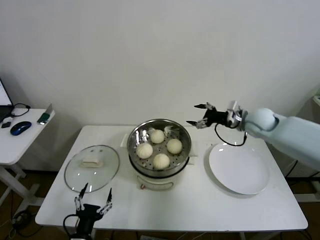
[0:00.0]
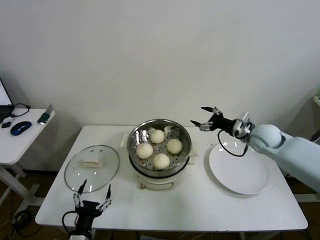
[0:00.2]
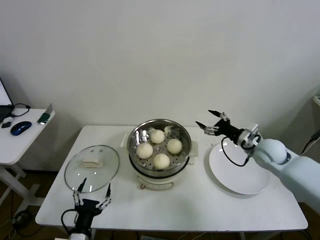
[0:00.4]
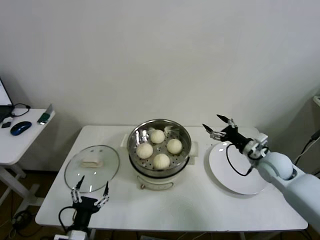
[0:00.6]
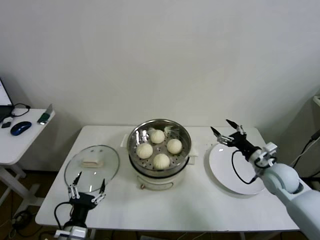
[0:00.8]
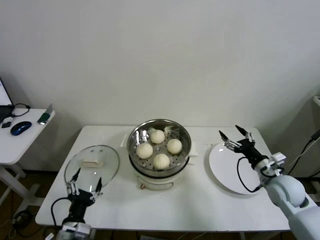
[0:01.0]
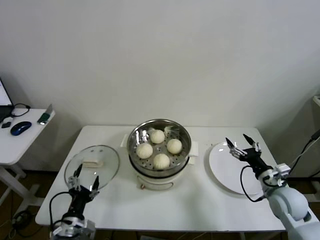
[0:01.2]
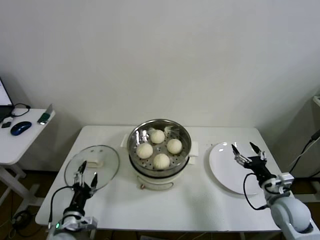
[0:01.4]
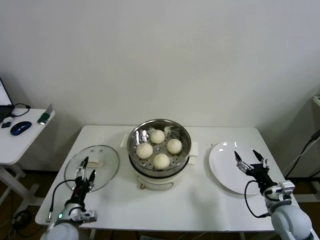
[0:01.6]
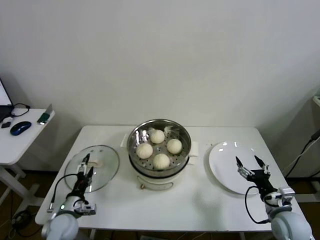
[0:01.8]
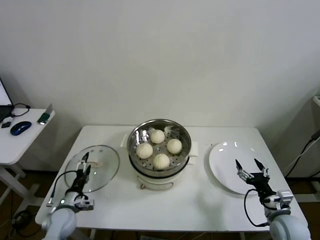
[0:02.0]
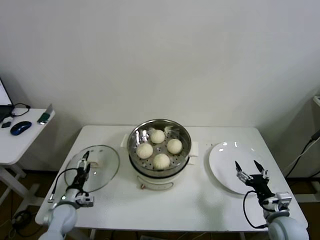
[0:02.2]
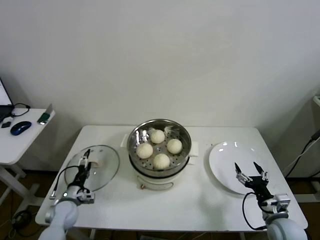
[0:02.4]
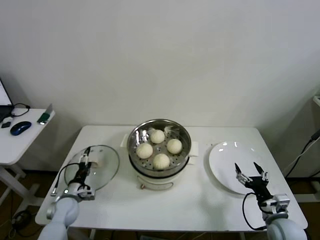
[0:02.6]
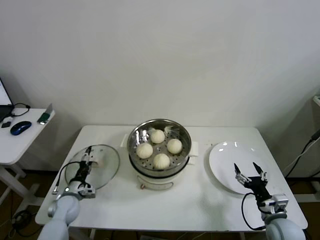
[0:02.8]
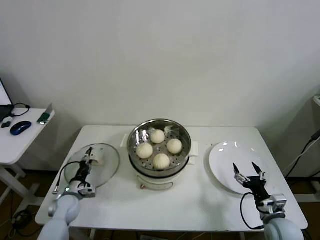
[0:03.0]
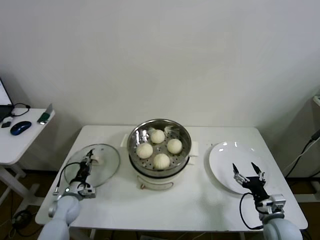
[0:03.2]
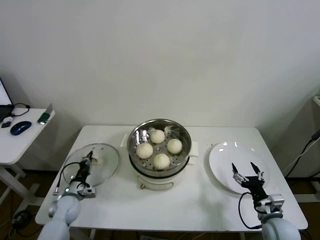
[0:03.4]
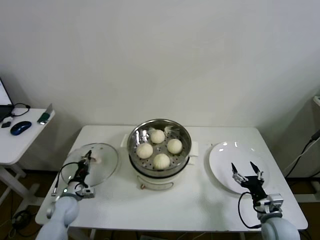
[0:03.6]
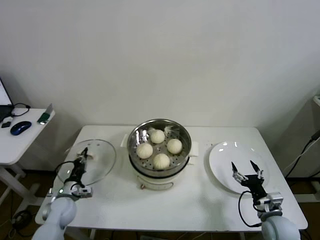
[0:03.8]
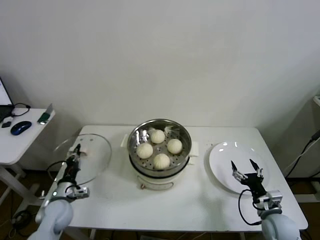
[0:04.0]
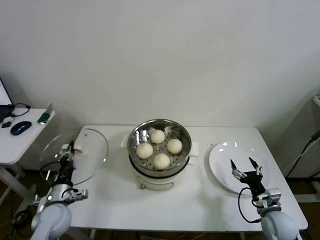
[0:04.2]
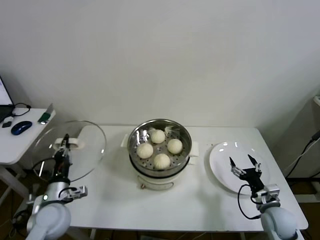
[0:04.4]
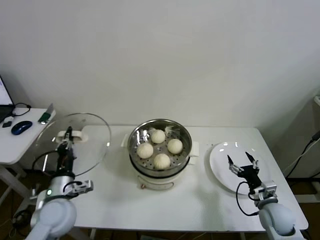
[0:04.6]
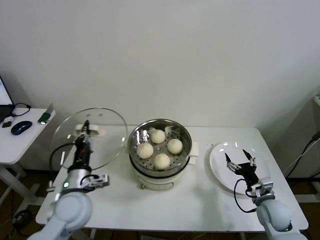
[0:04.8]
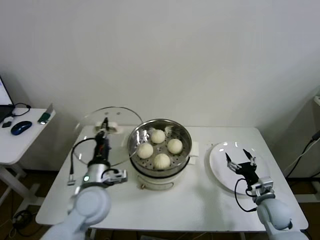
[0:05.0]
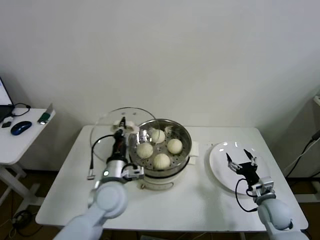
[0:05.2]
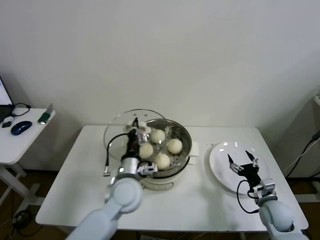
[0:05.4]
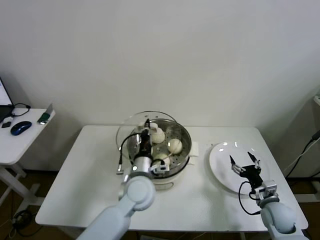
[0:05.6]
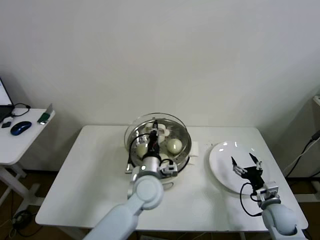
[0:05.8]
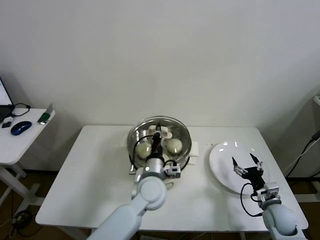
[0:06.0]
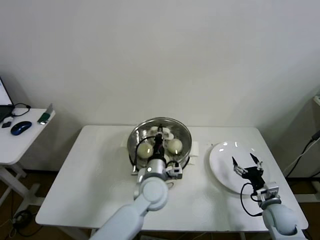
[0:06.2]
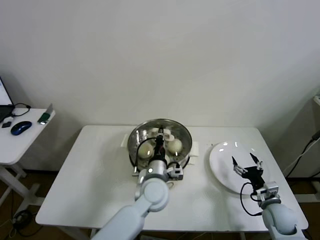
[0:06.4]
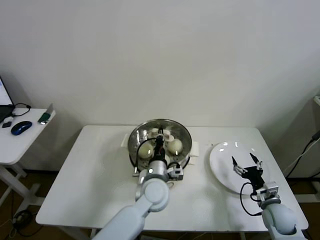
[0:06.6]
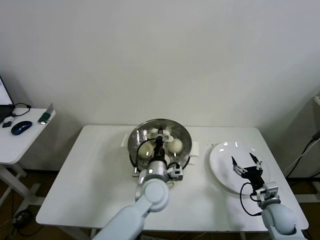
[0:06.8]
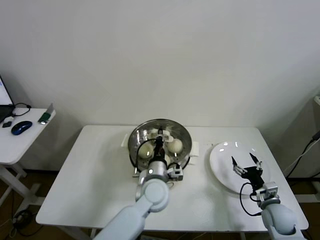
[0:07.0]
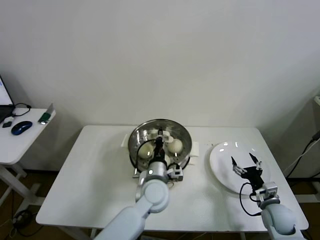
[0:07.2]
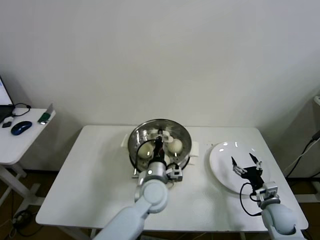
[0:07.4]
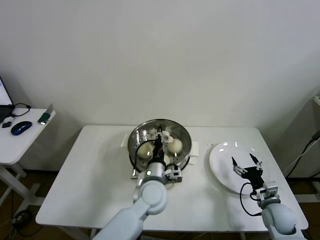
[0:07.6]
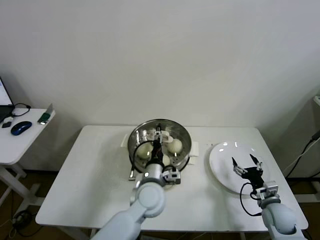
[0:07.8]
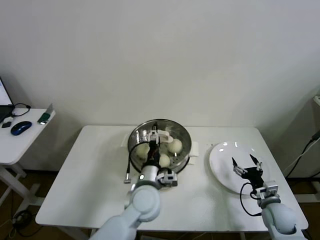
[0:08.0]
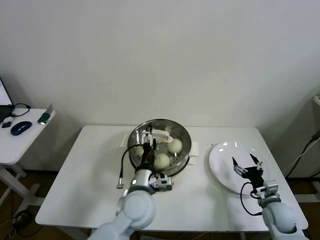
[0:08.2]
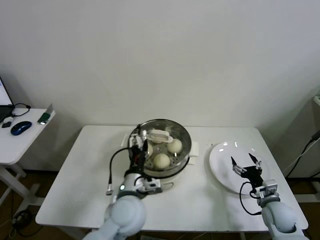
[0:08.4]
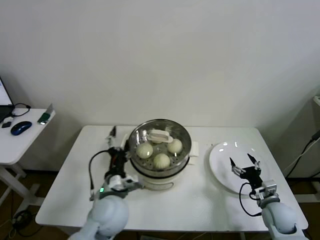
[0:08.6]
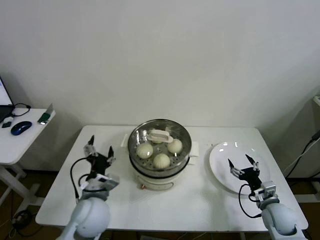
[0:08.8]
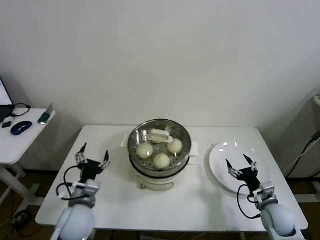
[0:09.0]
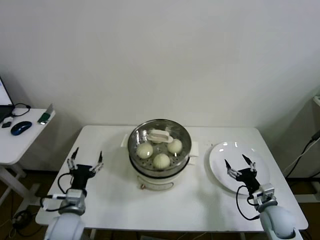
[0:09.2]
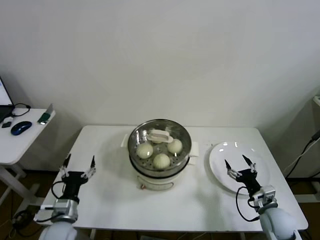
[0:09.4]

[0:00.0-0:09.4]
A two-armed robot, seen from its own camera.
Step, 0:00.0 to 0:03.6: Grasp the pot lid with left gripper.
Step, 0:04.0 to 0:08.2: Place the pot lid on the steamer with left gripper.
0:00.0 to 0:01.6: The left gripper shifts about 10 cm forward and to the left; the right gripper shifts about 30 cm backward and downward.
0:01.6 to 0:03.2: The left gripper heads forward, downward and to the left, covering some 15 cm, and closes, while the right gripper changes place by approximately 5 cm.
0:03.2 to 0:04.8: The left gripper moves upward and to the right, approximately 25 cm, and closes up, while the right gripper shifts roughly 5 cm forward.
0:04.8 to 0:06.2: The left gripper heads to the right, covering some 25 cm.
0:06.2 to 0:07.8: The left gripper opens its fingers.
0:07.8 to 0:09.4: The left gripper shifts roughly 25 cm to the left, and opens up.

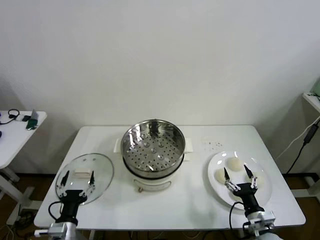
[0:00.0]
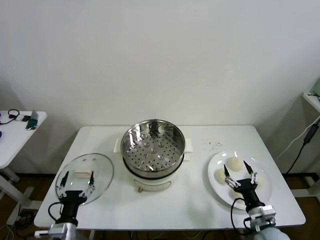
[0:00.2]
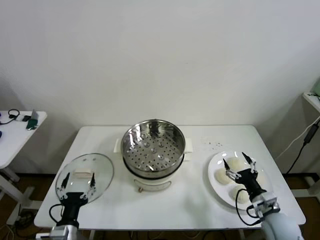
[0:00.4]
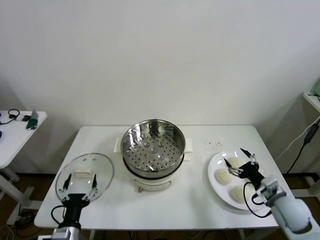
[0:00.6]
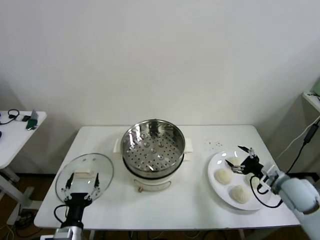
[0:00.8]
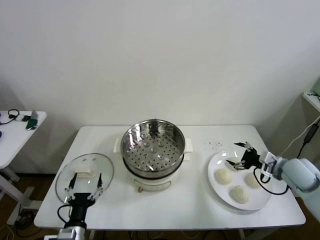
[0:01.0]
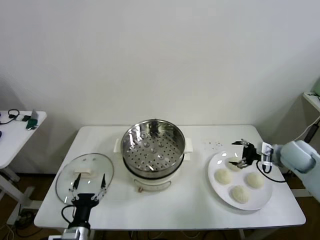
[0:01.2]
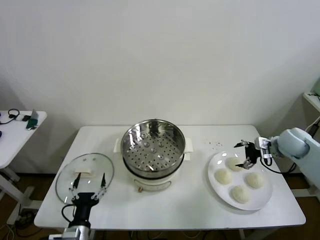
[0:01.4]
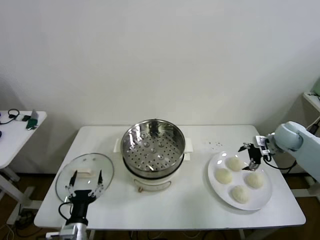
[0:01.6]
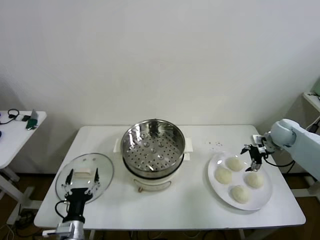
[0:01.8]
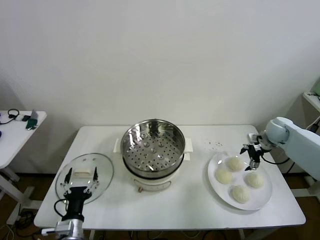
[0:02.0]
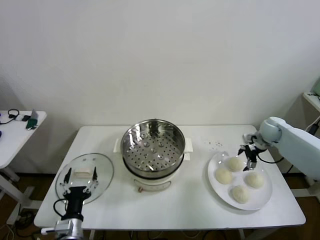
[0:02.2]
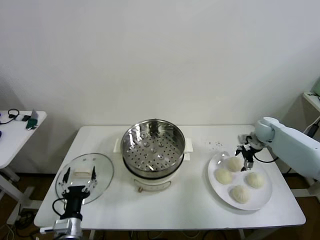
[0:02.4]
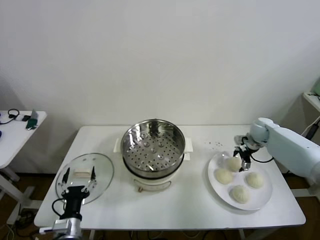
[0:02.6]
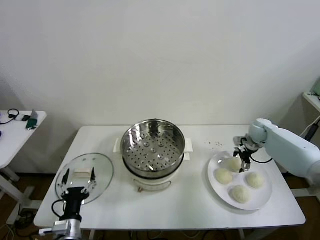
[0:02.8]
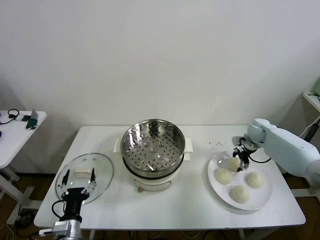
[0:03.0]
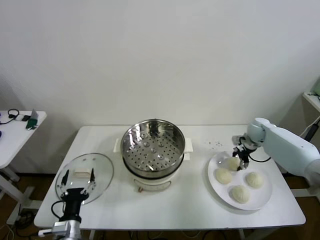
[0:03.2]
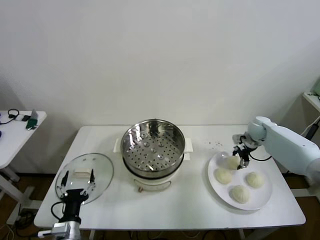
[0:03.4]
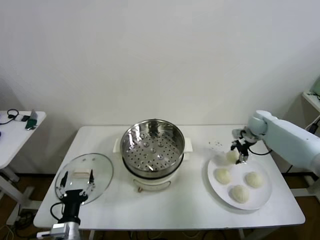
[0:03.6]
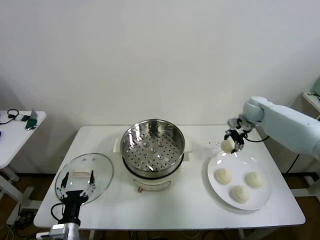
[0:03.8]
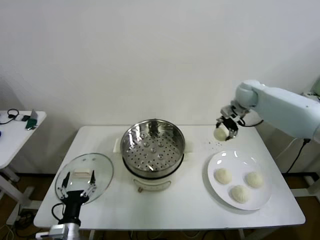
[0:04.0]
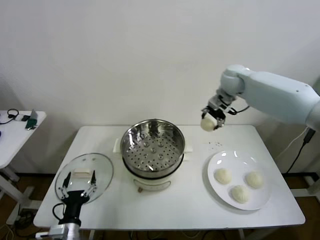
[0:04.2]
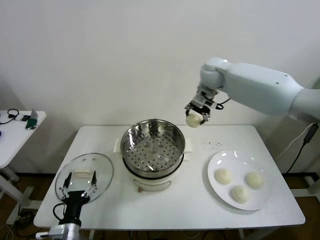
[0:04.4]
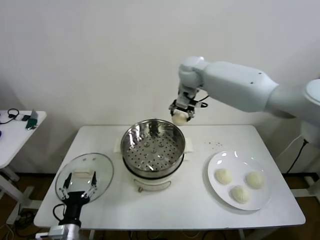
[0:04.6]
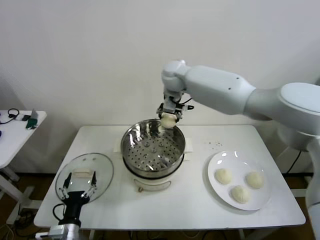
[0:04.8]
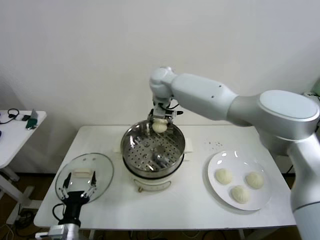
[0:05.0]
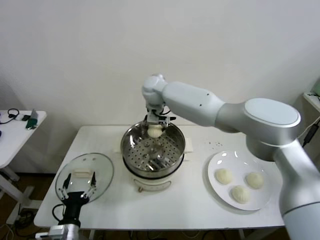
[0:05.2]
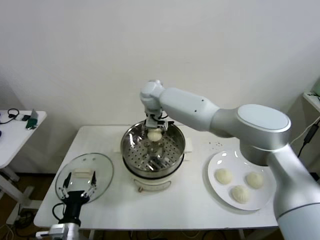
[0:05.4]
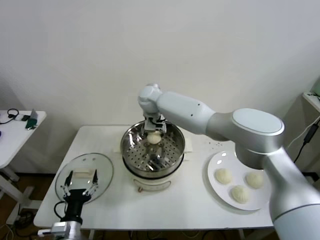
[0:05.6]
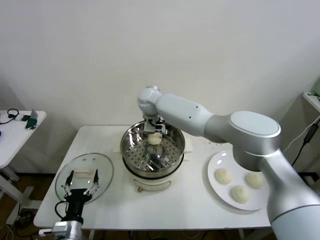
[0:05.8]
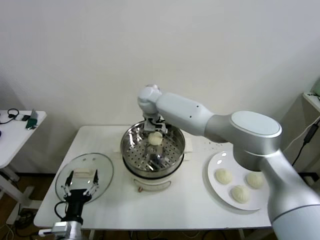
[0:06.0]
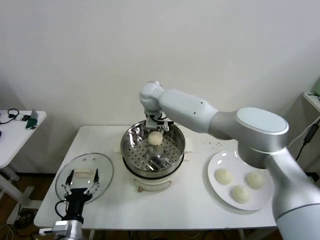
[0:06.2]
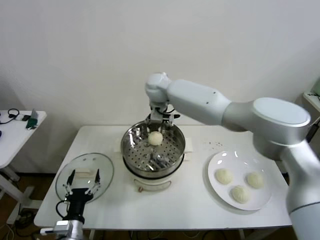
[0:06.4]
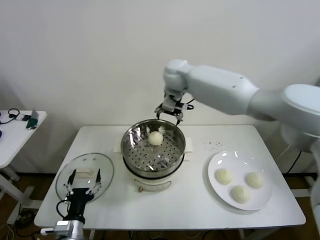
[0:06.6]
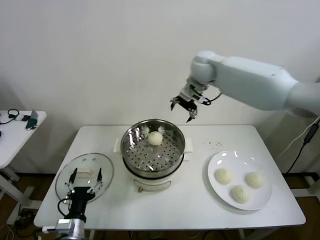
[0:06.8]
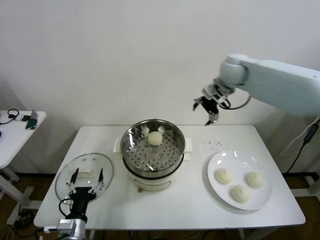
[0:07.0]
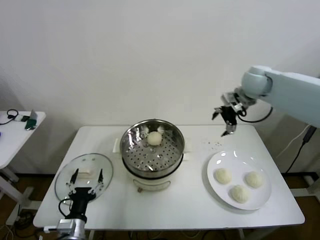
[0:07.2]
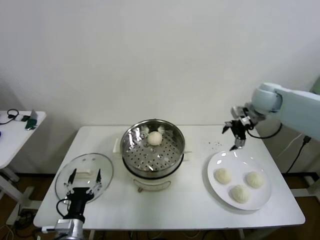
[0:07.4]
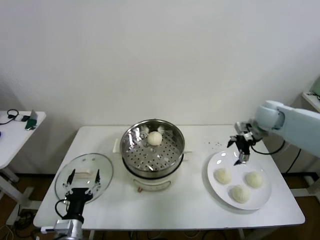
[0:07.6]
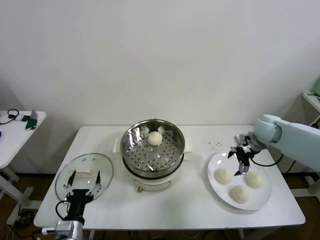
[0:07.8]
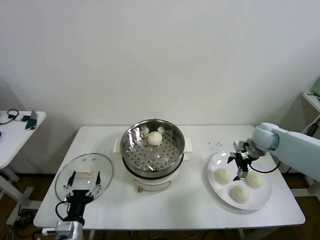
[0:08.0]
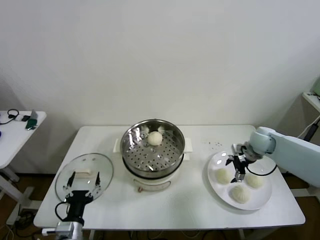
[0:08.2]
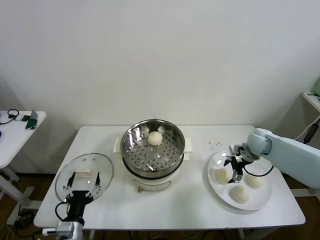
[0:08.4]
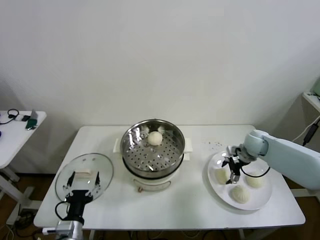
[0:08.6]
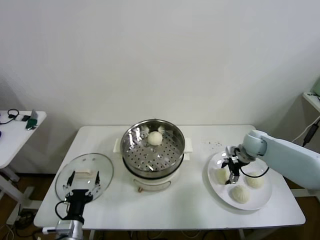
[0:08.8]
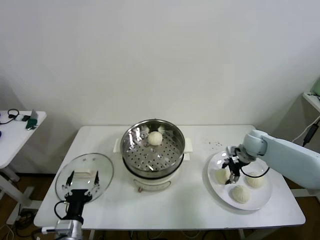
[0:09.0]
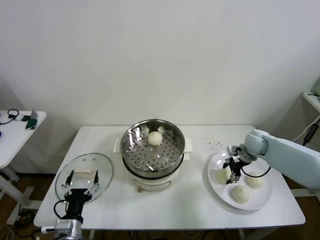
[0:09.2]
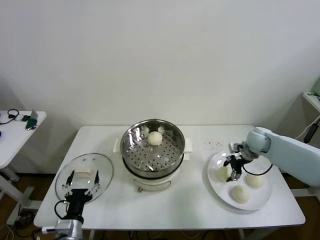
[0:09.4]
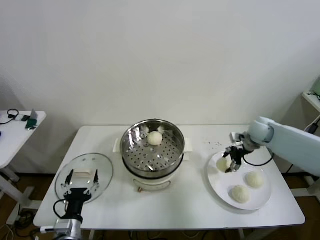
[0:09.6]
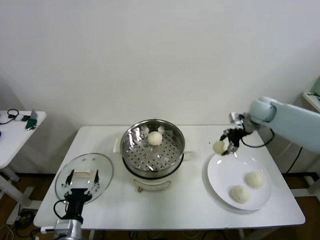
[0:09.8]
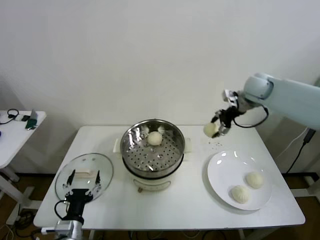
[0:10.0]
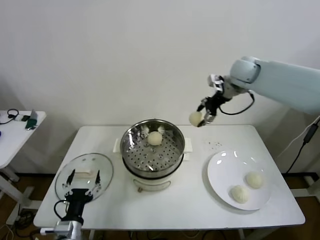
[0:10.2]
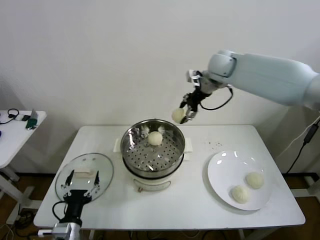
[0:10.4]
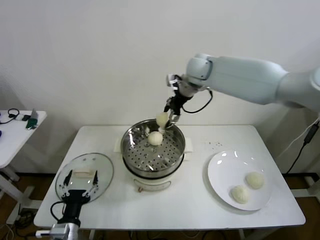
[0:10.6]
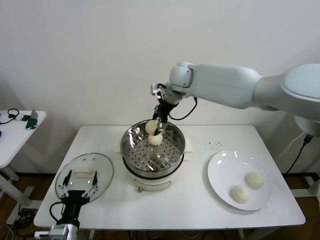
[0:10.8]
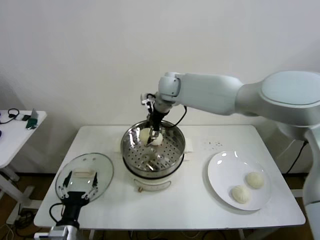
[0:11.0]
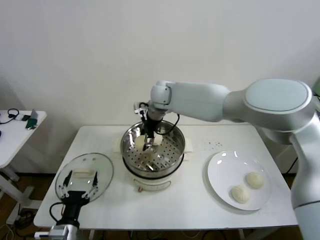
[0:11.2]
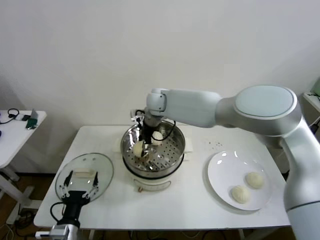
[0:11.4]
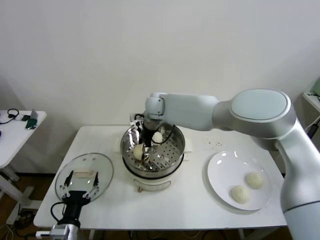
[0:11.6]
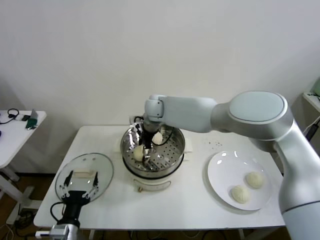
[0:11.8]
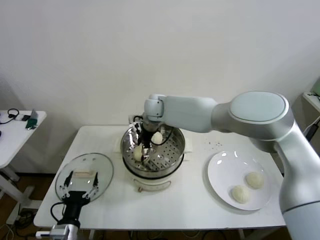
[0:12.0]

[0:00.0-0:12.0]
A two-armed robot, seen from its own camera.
Step, 0:00.0 to 0:03.4: Grasp the baozi in the plate with right gripper.
Step, 0:03.6 to 0:06.0: Place the baozi on the steamer with right gripper.
Step, 0:06.2 to 0:08.8: Grasp the baozi in the plate with right gripper.
0:01.6 to 0:03.0: The right gripper heads forward, downward and to the left, covering about 10 cm, and closes.
0:03.0 to 0:04.4: The right gripper heads to the left and upward, covering about 35 cm.
0:04.4 to 0:06.0: The right gripper goes approximately 20 cm to the left and downward, and opens up.
0:06.0 to 0:07.6: The right gripper moves to the right, about 40 cm.
0:07.6 to 0:09.0: The right gripper goes some 10 cm downward, and closes up.
0:09.0 to 0:10.4: The right gripper heads upward and to the left, covering about 35 cm.
0:10.4 to 0:12.0: The right gripper travels to the left and downward by approximately 25 cm, and opens.
